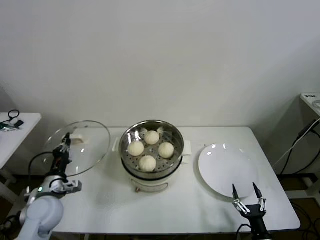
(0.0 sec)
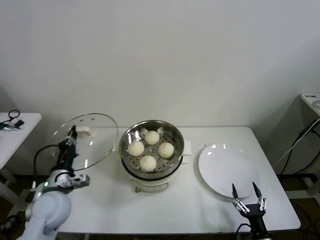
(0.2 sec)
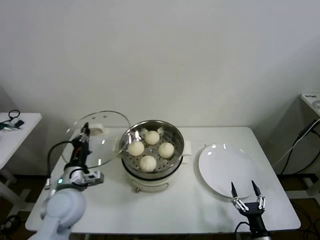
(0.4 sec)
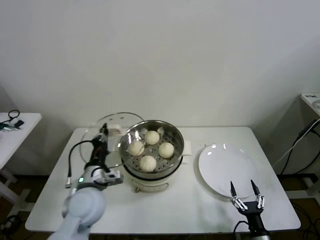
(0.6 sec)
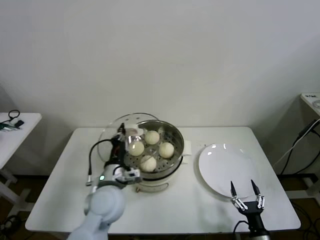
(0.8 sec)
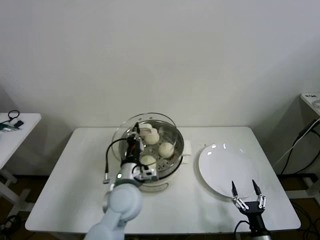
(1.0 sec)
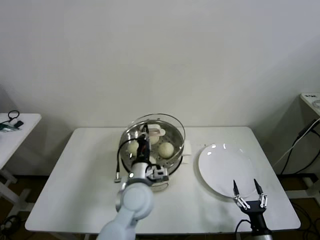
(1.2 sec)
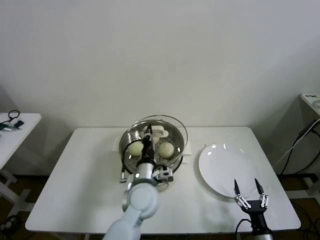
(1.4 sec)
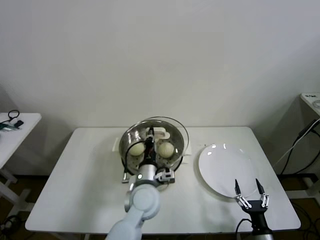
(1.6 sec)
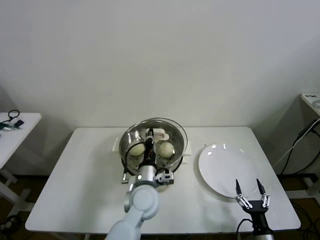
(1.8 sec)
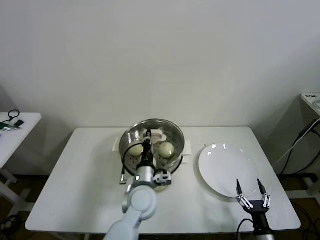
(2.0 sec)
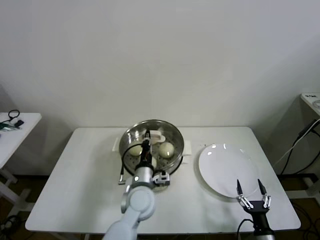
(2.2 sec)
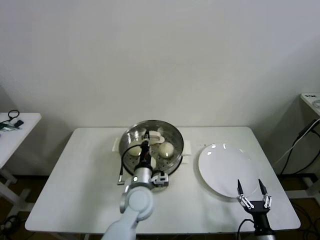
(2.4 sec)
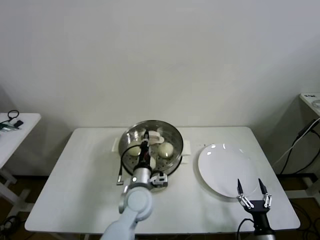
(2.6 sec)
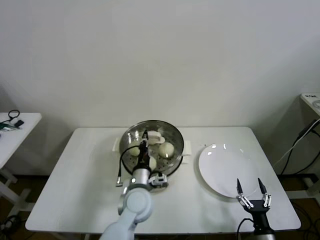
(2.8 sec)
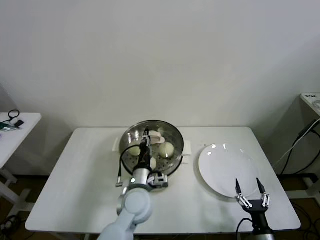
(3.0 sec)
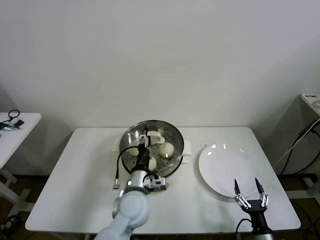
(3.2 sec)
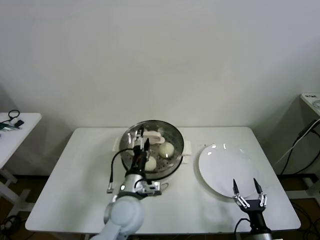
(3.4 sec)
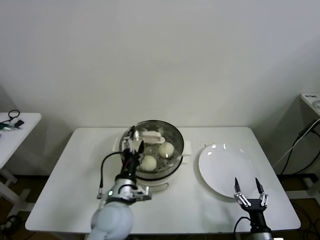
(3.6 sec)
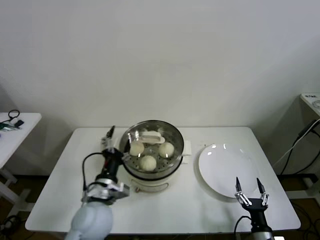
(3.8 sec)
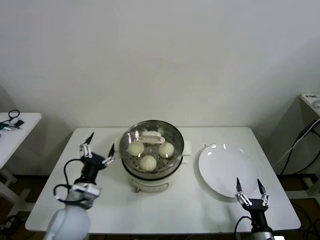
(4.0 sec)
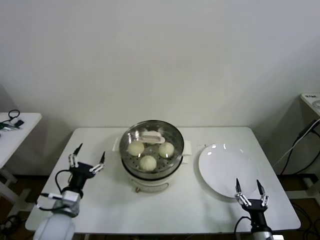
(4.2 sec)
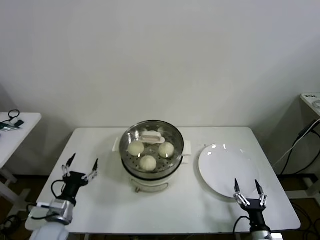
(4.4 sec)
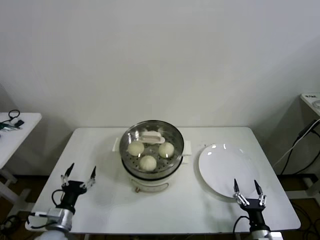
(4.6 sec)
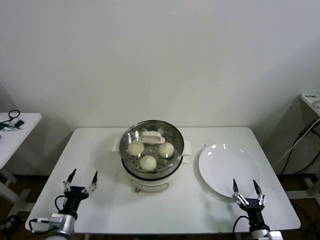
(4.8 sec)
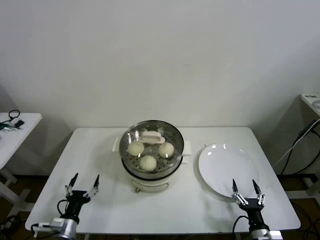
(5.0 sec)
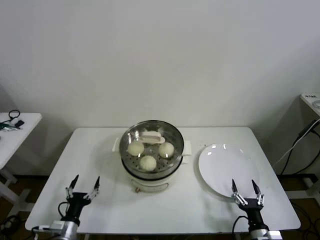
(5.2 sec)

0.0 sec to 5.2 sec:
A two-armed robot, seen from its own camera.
Step, 0.0 sec to 3.0 sec: Place the pot lid on the steamer with left gripper.
0.0 sec to 1.8 sec: The left gripper is displaced to the right by approximately 30 cm.
1.8 sec to 3.4 sec: The left gripper moves approximately 5 cm, and opens.
3.4 sec to 5.2 sec: The left gripper moves to the left, downward and backward, about 30 cm.
